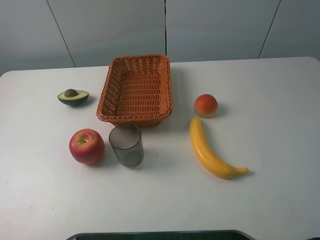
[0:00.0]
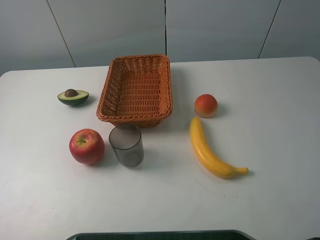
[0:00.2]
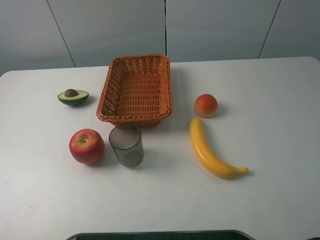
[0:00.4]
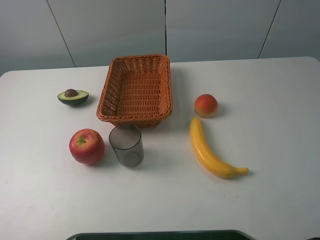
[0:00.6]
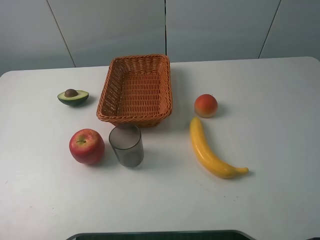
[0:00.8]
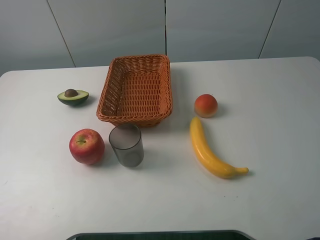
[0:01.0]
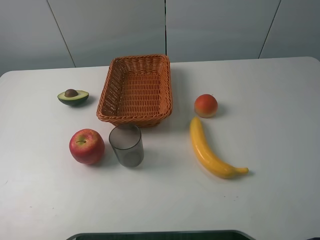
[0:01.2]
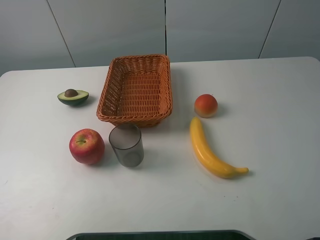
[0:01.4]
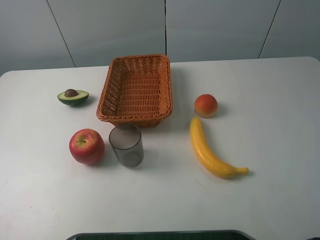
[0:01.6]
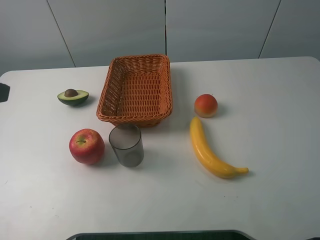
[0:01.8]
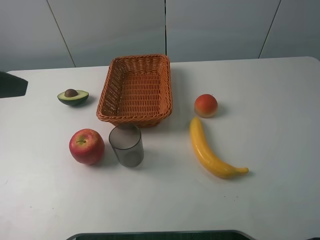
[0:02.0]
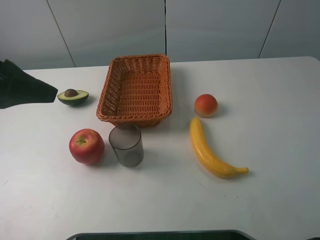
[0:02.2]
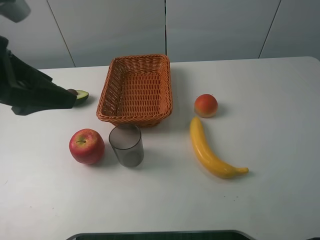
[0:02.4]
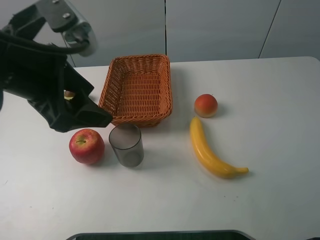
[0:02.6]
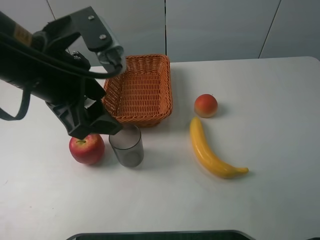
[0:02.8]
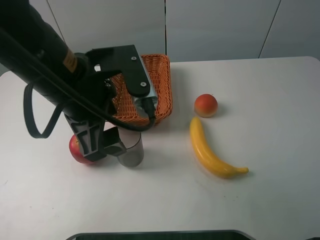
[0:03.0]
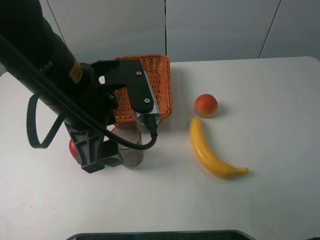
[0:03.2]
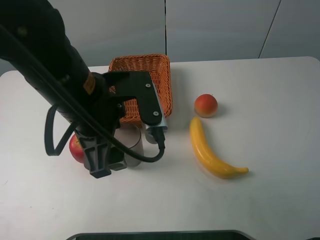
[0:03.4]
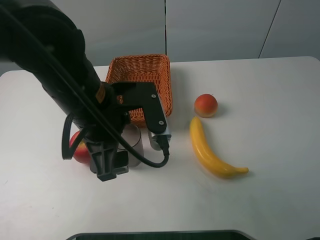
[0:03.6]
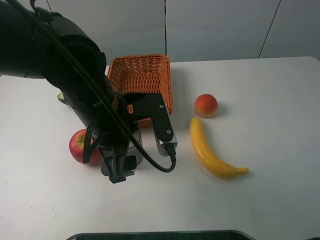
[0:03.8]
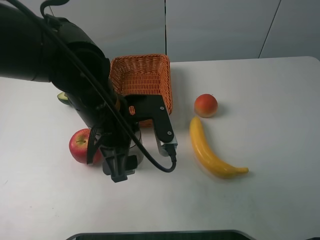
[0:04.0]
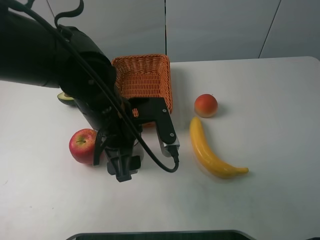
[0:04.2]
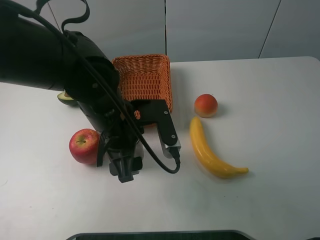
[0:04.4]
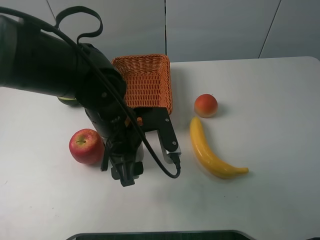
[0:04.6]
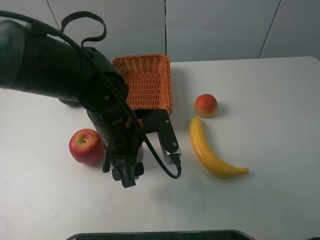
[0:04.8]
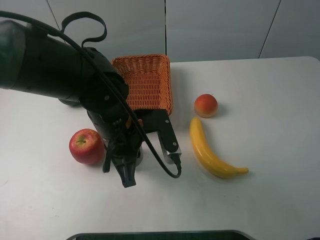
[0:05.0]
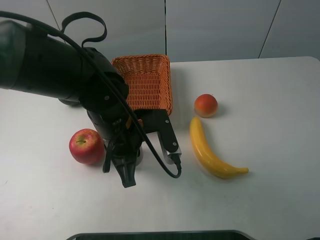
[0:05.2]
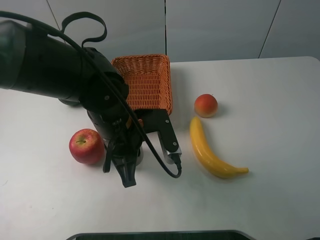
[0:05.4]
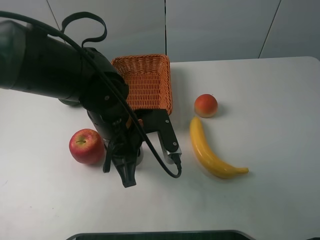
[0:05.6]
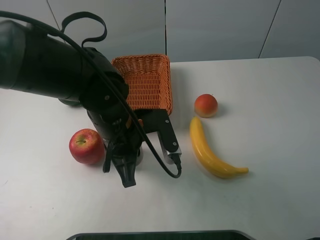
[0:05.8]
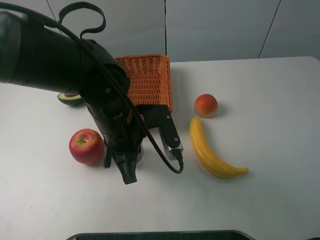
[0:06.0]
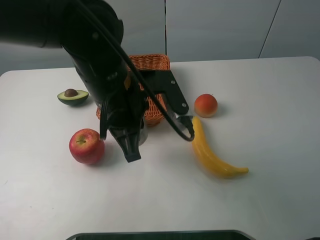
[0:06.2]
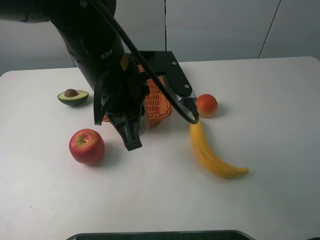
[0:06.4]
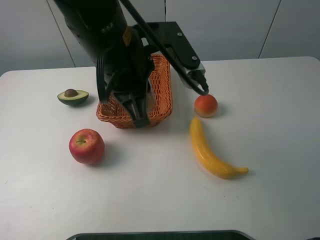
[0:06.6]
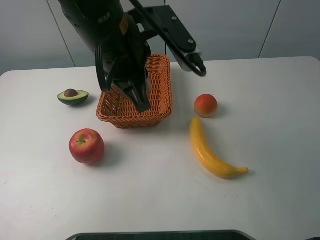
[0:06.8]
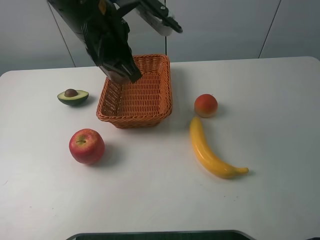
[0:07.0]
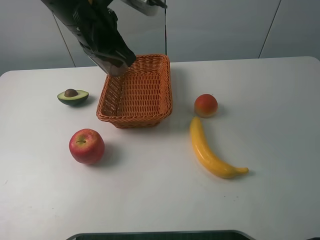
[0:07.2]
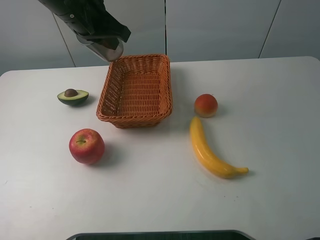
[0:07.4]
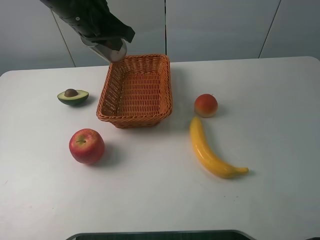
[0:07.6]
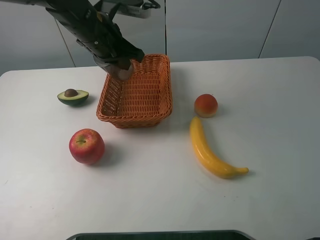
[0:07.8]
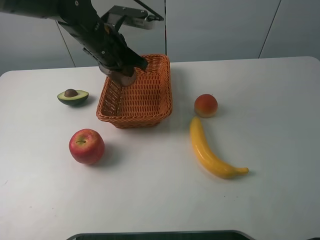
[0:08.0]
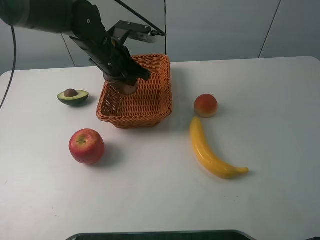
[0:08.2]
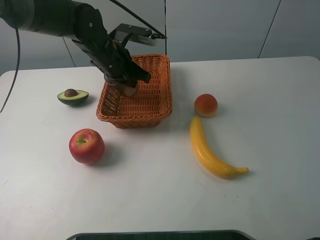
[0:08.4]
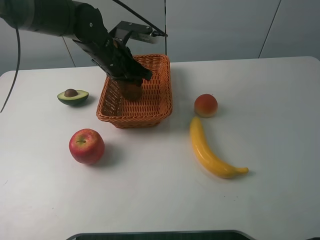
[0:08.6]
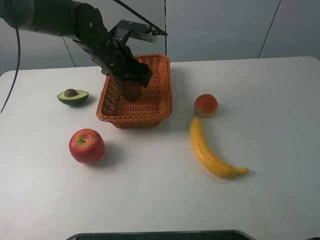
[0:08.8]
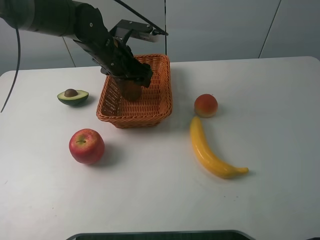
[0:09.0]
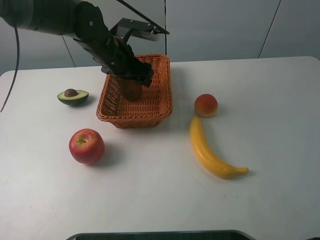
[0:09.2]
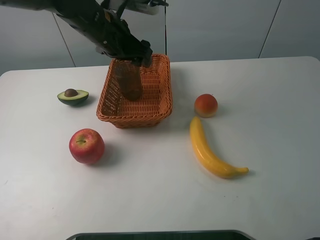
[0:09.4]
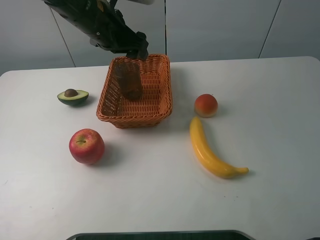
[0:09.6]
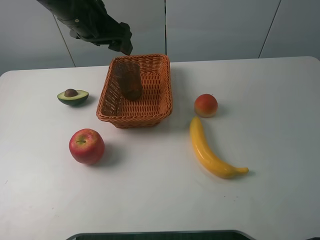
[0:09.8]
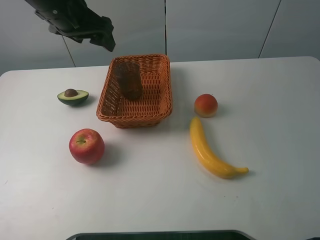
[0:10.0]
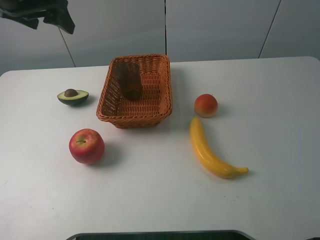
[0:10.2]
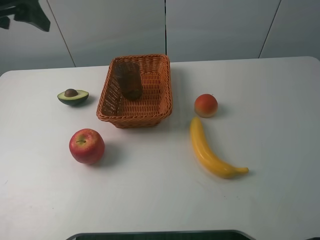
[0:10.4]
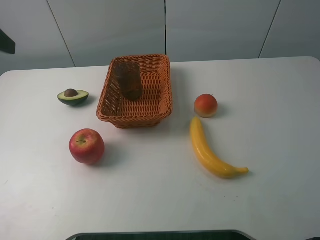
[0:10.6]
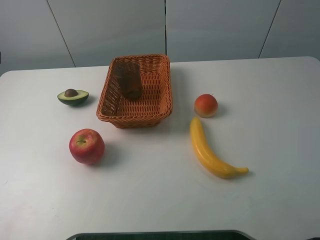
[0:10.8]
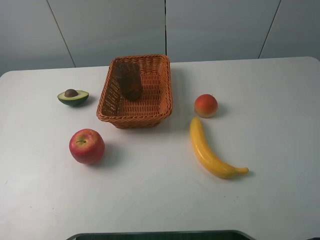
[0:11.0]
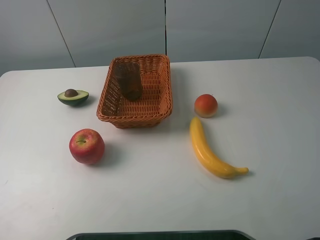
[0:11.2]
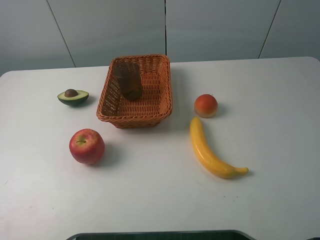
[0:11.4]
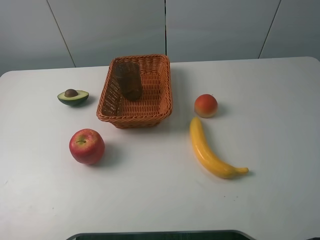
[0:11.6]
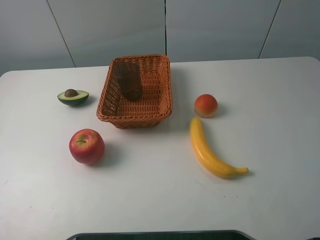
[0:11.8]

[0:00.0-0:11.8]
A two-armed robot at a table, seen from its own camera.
0:01.4 to 0:03.0: The left gripper is displaced to the right and forward by roughly 25 cm.
0:03.0 to 0:04.4: The left gripper goes about 10 cm downward.
0:04.4 to 0:06.0: The left gripper closes.
0:06.0 to 0:07.4: The left gripper is displaced upward, forward and to the left by roughly 20 cm.
0:07.4 to 0:08.8: The left gripper moves downward, roughly 10 cm, and opens.
0:08.8 to 0:10.4: The left gripper travels upward, to the left and backward by some 25 cm.
0:10.4 to 0:11.8: The left gripper is displaced backward by about 30 cm.

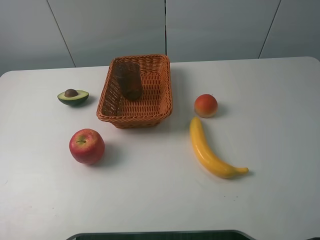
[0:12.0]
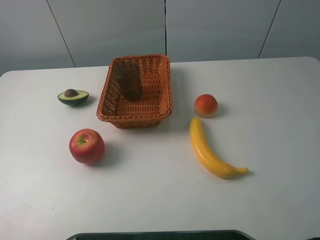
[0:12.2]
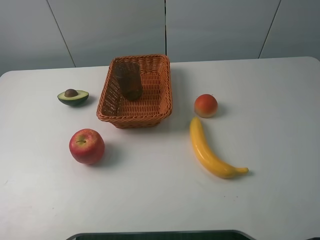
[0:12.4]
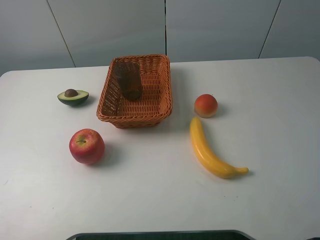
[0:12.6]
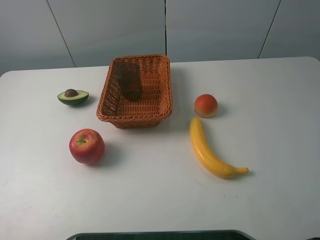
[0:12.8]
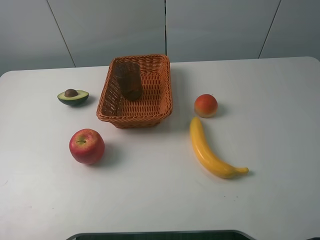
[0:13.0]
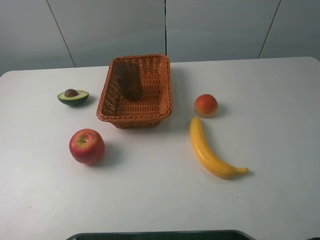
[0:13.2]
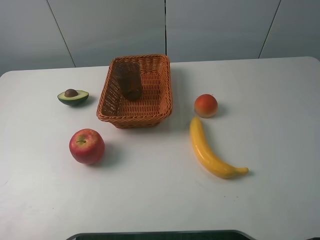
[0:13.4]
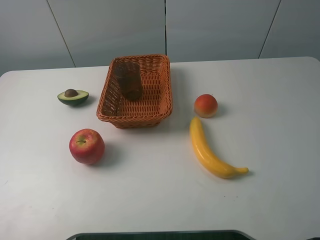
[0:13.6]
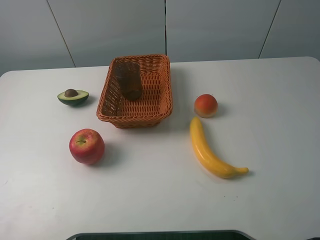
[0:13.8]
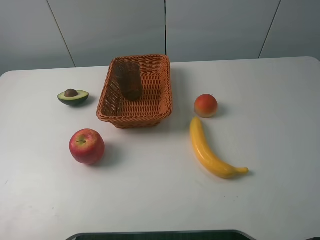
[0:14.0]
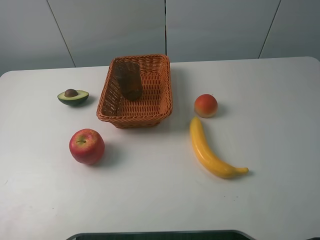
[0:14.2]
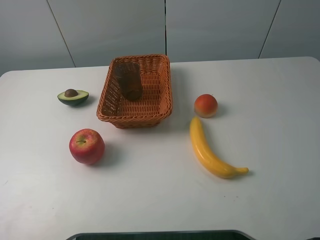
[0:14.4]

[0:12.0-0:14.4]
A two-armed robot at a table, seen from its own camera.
0:12.0 to 0:13.2: The two grippers keep their place.

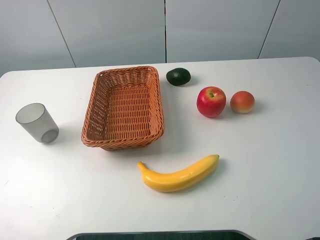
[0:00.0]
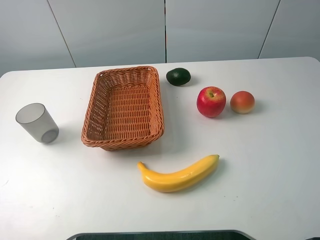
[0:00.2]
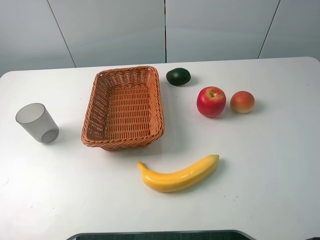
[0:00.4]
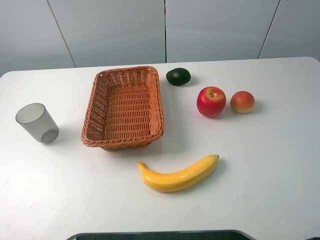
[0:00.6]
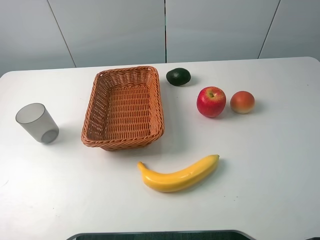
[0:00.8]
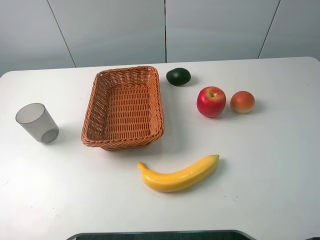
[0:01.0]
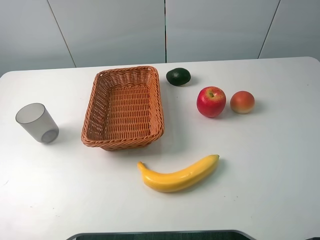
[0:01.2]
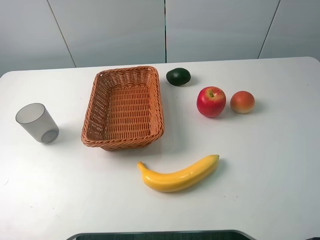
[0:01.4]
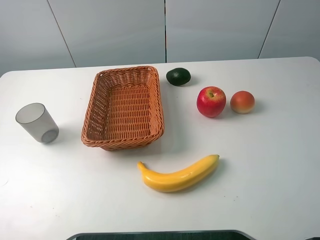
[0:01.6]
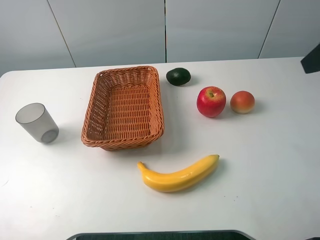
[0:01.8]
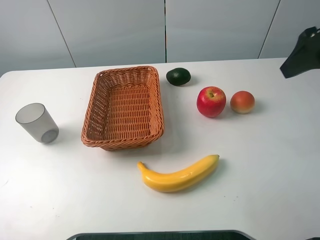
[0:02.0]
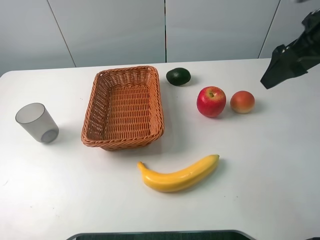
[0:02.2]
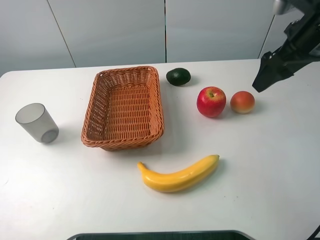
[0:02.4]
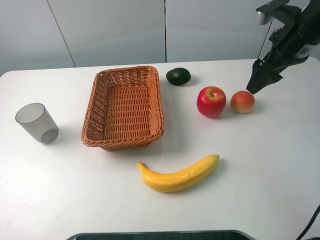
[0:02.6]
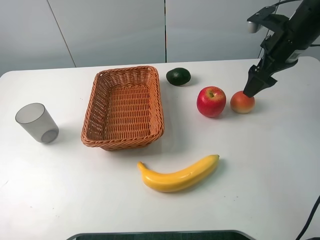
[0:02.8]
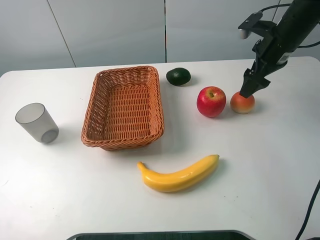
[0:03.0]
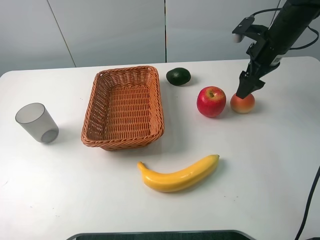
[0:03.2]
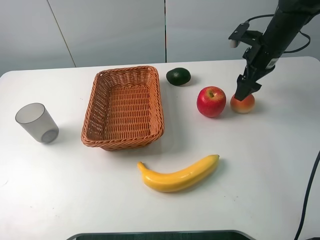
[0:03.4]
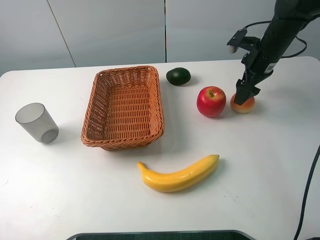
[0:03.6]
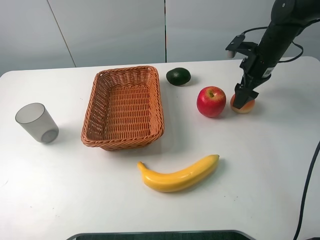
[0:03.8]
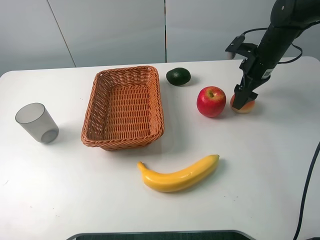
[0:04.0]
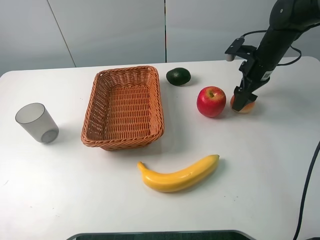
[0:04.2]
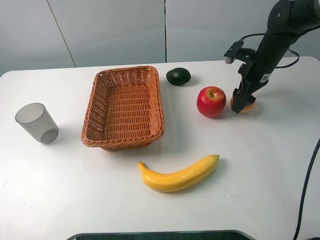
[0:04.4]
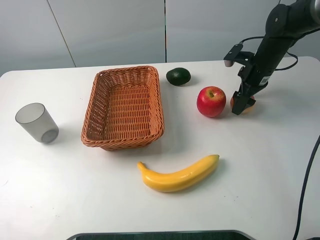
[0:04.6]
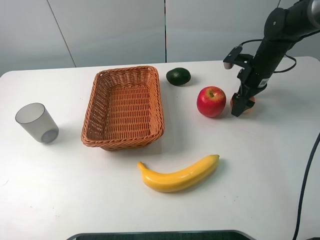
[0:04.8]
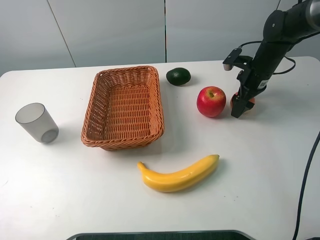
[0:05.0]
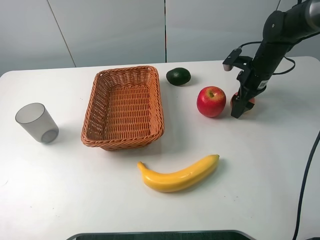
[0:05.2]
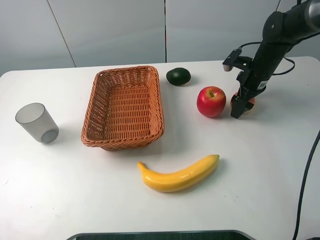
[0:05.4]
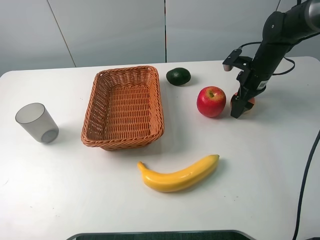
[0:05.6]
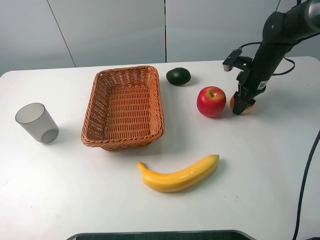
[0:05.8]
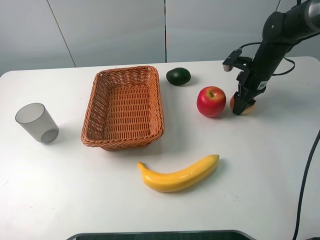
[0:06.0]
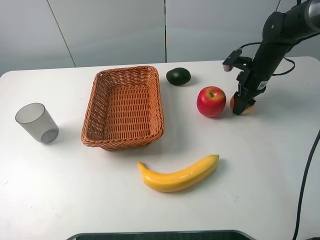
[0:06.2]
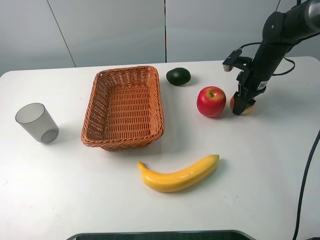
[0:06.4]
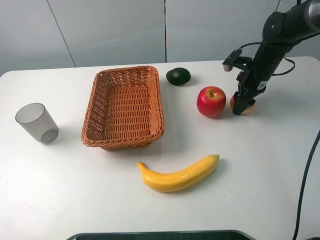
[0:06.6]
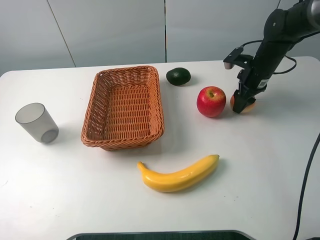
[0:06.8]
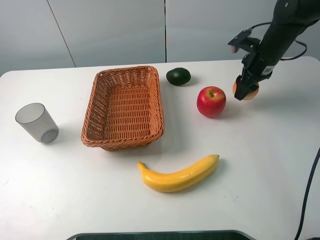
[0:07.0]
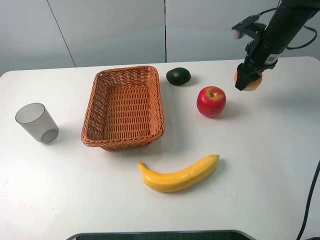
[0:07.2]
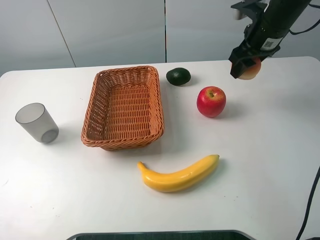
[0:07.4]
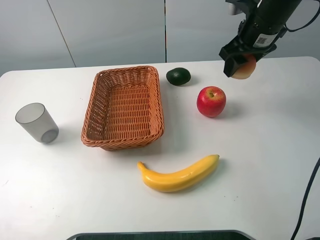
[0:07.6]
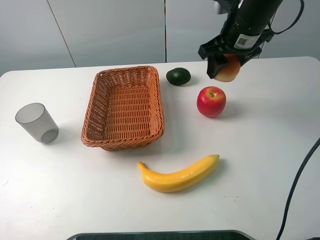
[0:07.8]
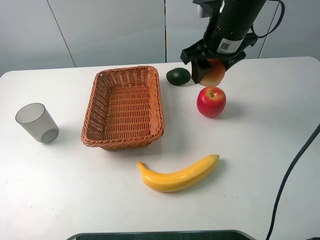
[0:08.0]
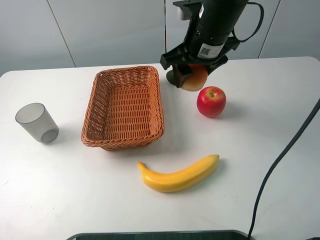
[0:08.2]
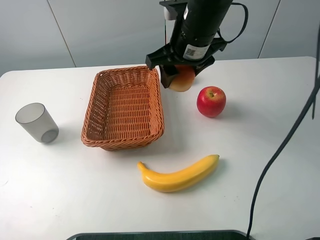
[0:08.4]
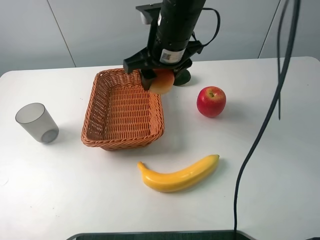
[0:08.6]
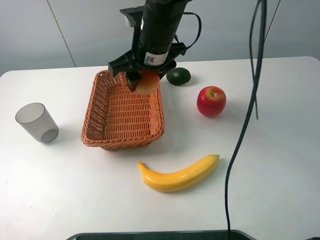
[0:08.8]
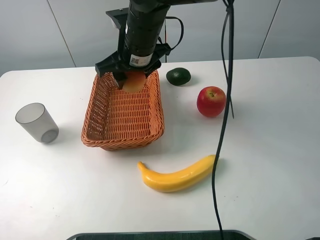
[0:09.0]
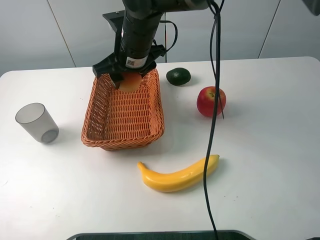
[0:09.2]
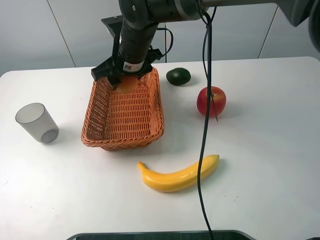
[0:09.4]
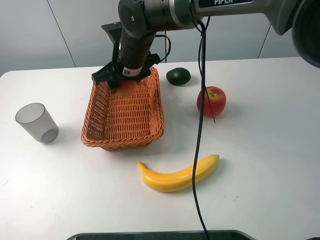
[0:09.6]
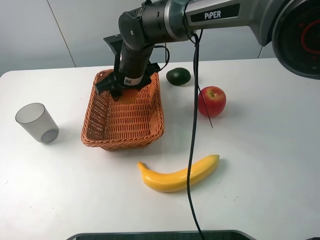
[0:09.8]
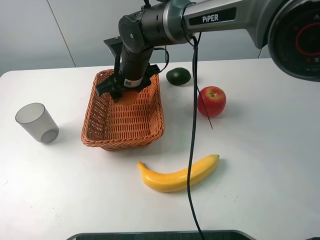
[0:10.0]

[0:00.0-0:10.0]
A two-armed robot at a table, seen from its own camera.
0:01.4 to 0:02.8: The right gripper heads forward and downward, covering about 30 cm.
0:02.8 to 0:04.2: The right gripper heads downward, covering about 10 cm.
0:04.2 to 0:05.8: The right gripper closes.
0:05.8 to 0:07.2: The right gripper travels upward by roughly 10 cm.
0:07.2 to 0:08.6: The right gripper shifts roughly 20 cm to the left.
0:08.6 to 0:10.0: The right gripper moves downward and to the left, about 10 cm.
